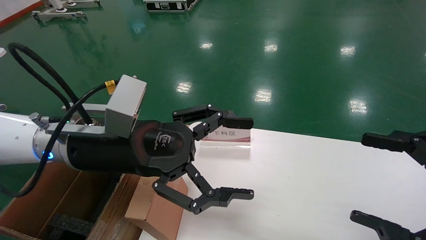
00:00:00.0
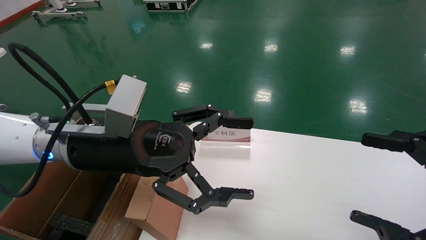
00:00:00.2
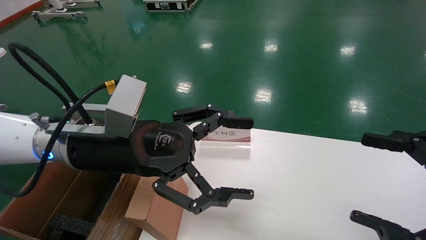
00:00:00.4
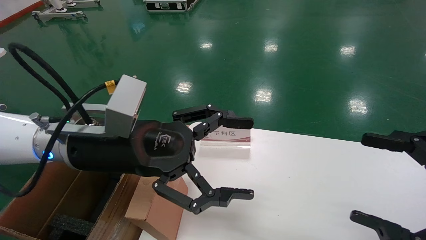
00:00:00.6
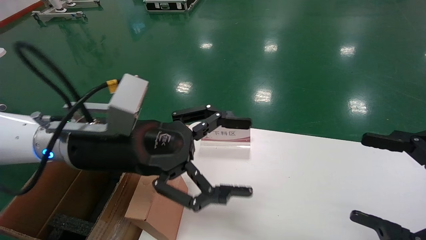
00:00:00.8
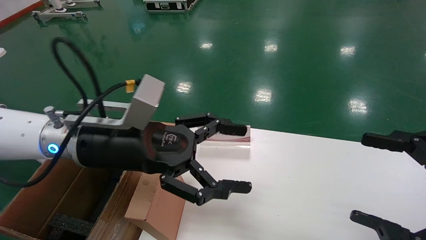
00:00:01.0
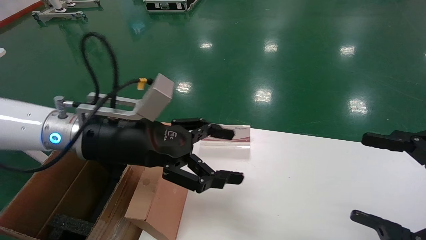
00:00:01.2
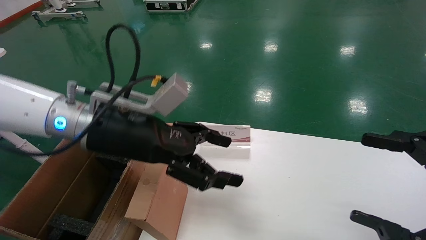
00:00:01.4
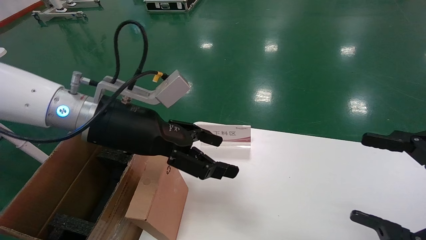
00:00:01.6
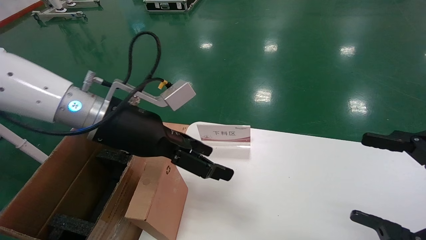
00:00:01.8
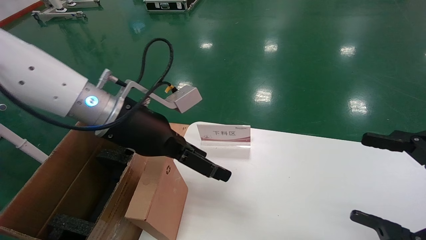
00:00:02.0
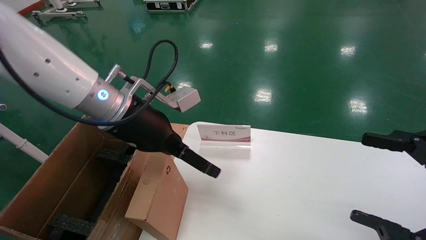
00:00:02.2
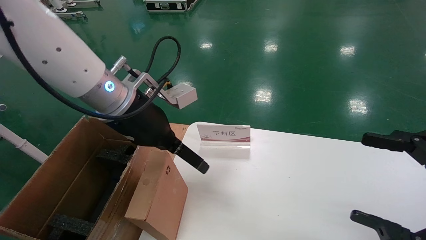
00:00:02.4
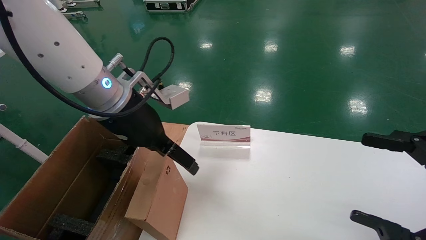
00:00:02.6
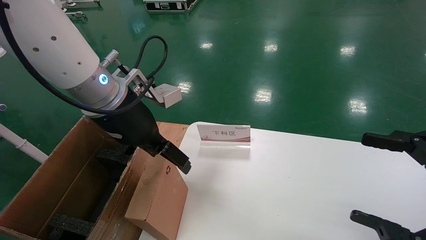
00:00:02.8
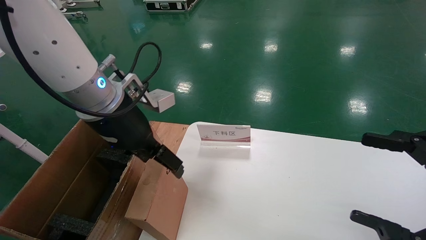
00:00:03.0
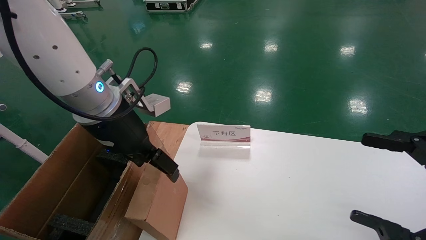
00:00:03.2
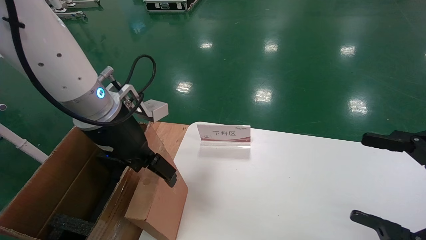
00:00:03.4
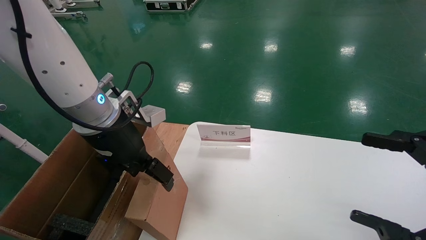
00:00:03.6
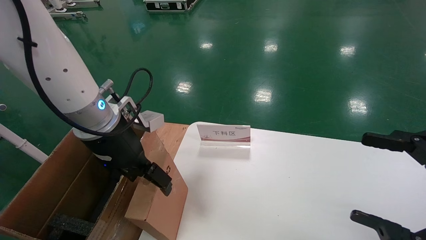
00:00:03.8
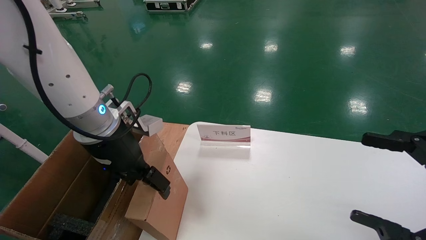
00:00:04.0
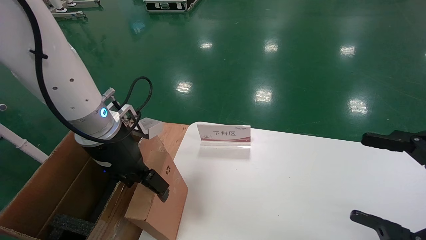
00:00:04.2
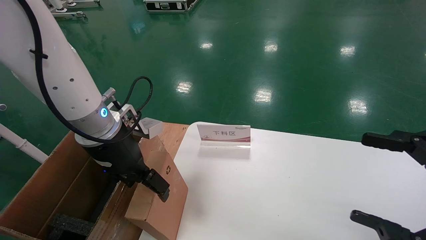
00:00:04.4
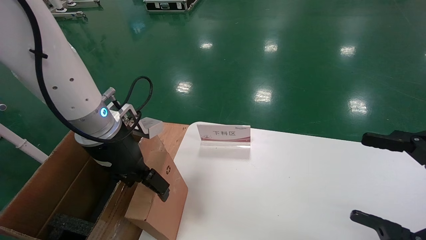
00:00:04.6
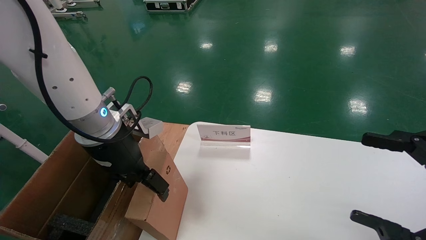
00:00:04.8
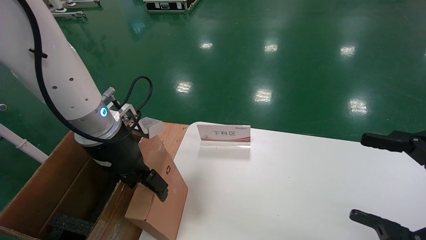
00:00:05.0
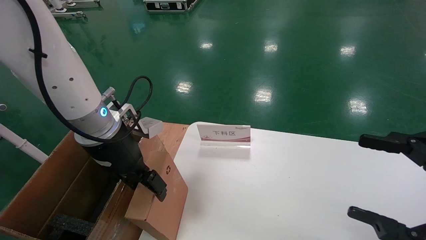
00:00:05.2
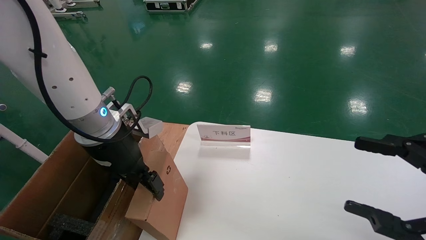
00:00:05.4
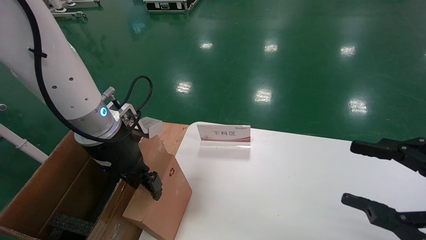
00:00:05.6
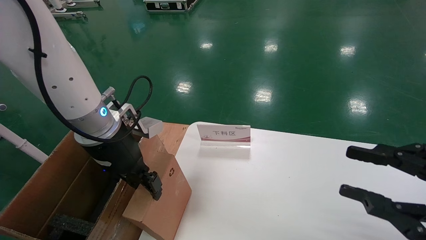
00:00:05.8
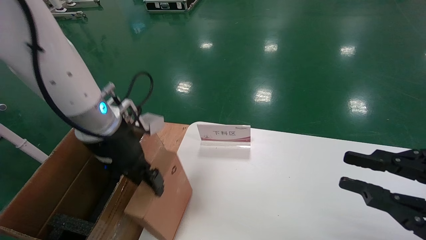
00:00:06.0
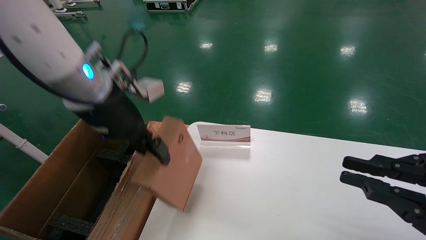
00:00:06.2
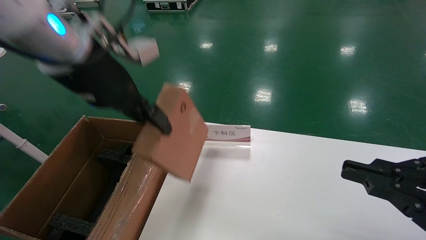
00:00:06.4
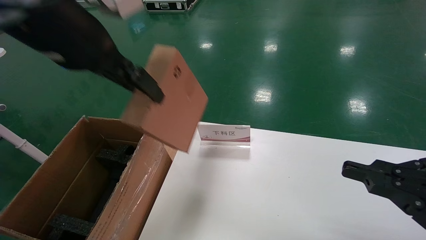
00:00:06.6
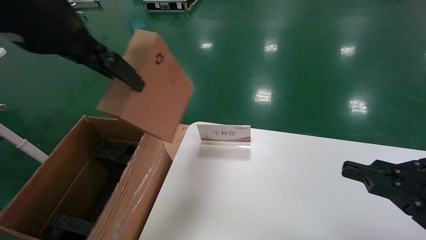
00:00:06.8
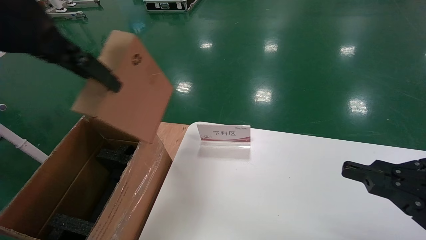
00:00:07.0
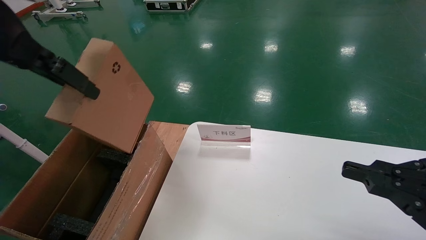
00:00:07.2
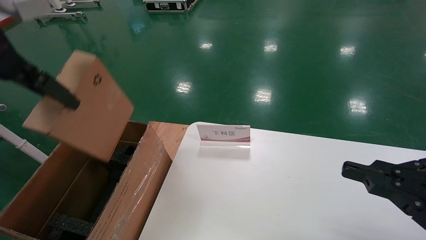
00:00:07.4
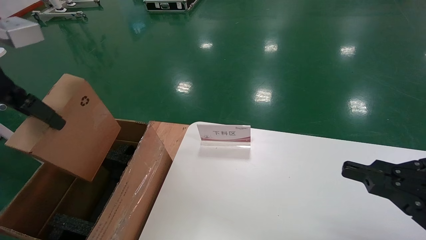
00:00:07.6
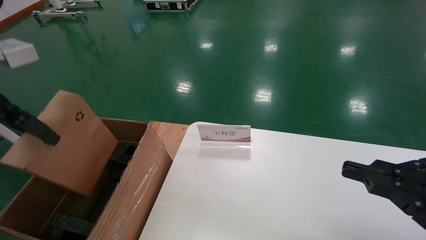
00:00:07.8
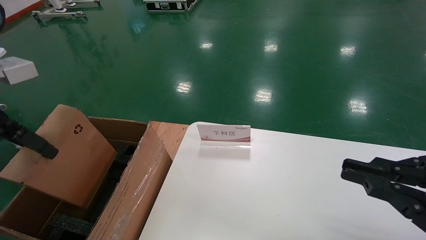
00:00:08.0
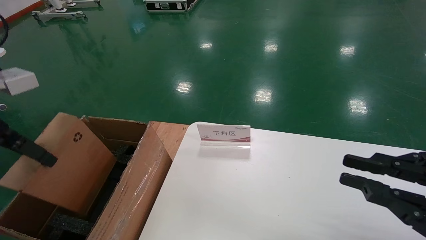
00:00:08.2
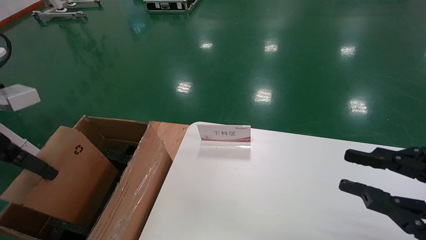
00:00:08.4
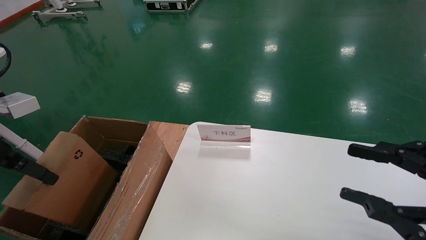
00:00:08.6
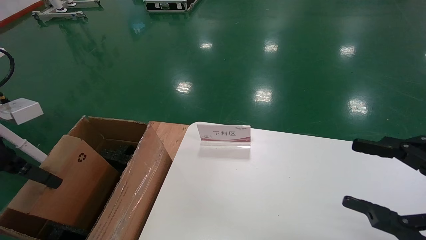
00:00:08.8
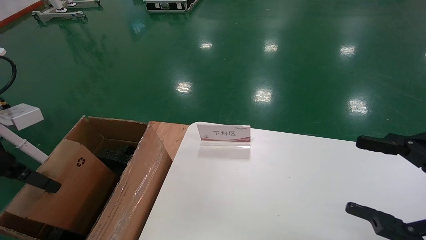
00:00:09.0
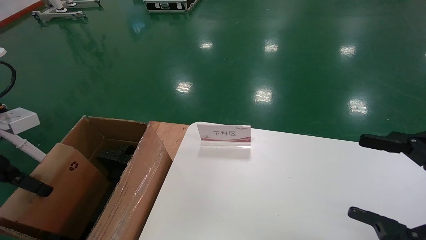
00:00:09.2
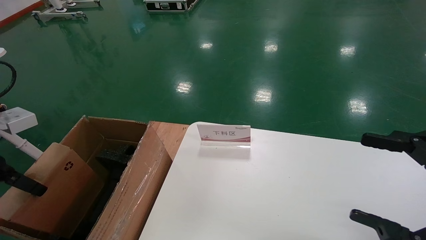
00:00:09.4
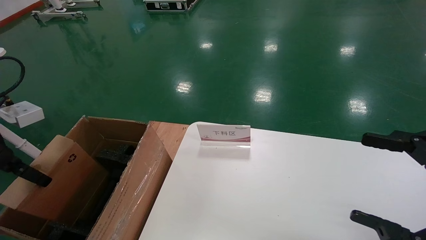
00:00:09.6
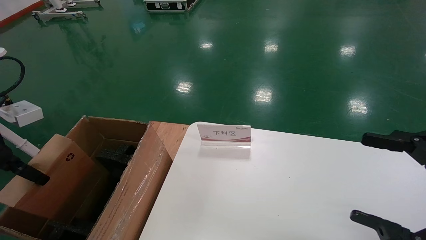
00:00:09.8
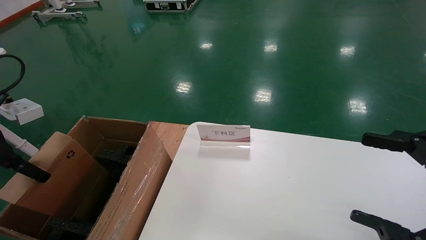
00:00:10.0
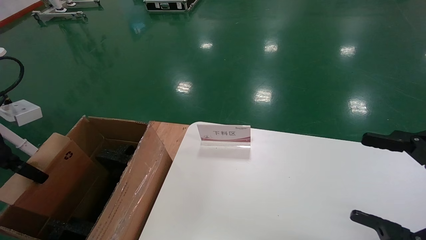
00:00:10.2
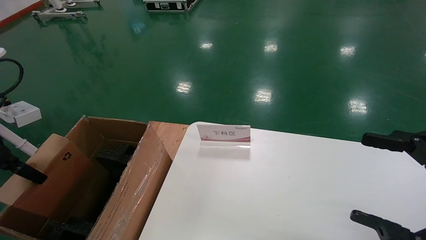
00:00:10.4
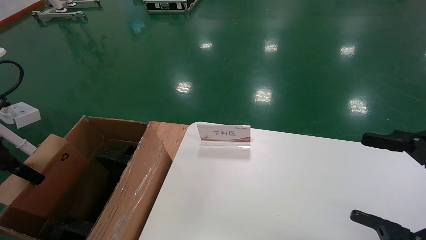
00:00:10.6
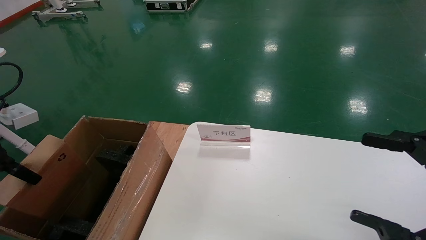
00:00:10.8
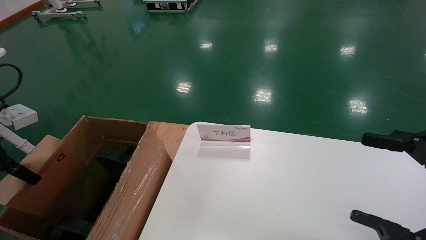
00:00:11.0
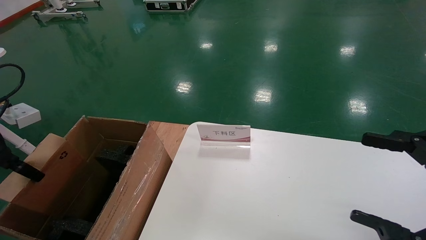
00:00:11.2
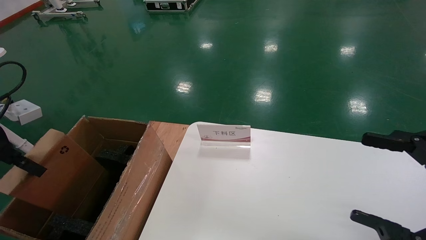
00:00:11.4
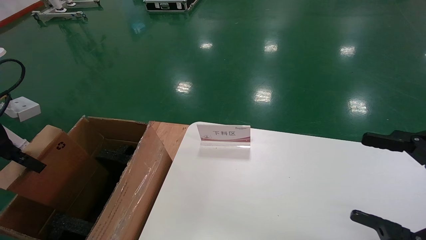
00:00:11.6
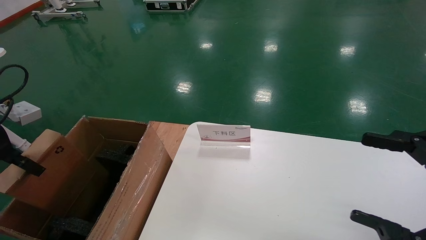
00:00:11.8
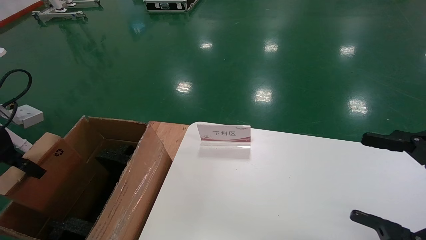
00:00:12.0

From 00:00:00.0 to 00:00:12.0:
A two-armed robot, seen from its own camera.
Task of the whole recording: pick up the small cardboard box and load it into the large cardboard box.
Step, from 00:00:01.0 to 00:00:06.2: Pick up the mouse and power cord box.
From 00:00:03.0 to 00:00:04.4: The left gripper moves some 5 cm.
From 00:00:04.4 to 00:00:06.0: The right gripper closes its fingers. The left gripper closes its fingers.
From 00:00:06.0 to 00:00:07.6: The left gripper travels upward, to the left and backward by some 20 cm.
From 00:00:07.6 to 00:00:09.0: The right gripper opens. Meanwhile the left gripper travels downward and to the left by some 15 cm.
From 00:00:09.0 to 00:00:10.4: There are only small adjustments of the grippers.
From 00:00:10.4 to 00:00:12.0: The left gripper moves some 5 cm.

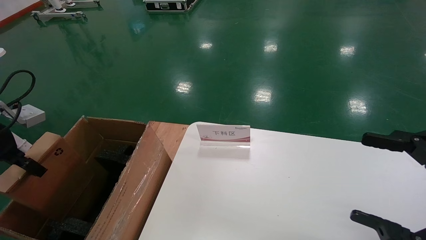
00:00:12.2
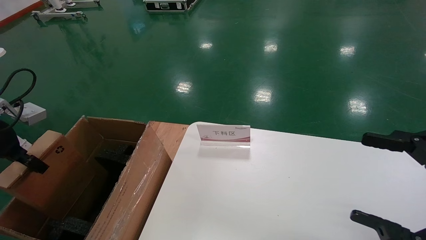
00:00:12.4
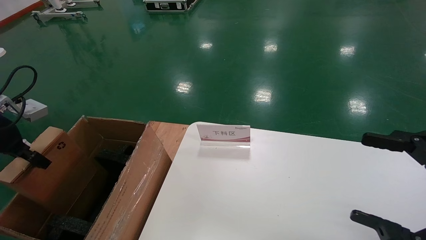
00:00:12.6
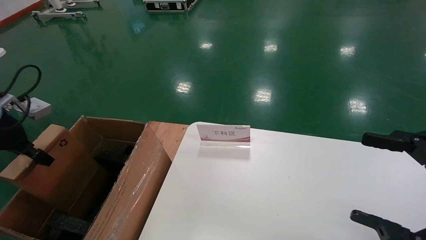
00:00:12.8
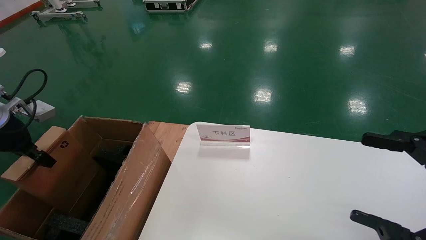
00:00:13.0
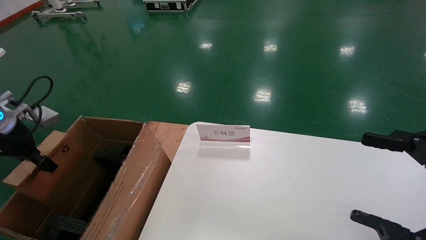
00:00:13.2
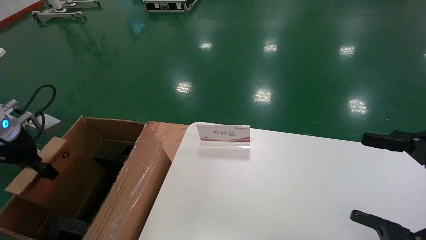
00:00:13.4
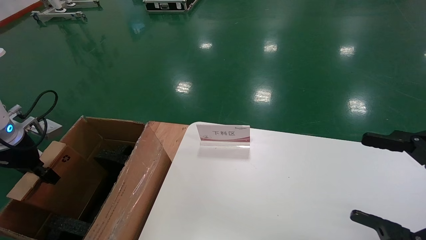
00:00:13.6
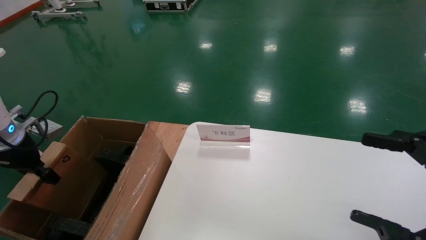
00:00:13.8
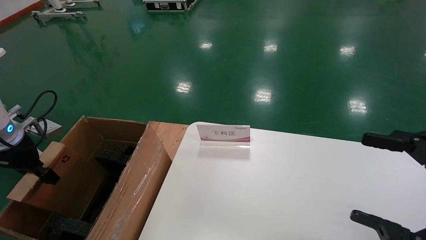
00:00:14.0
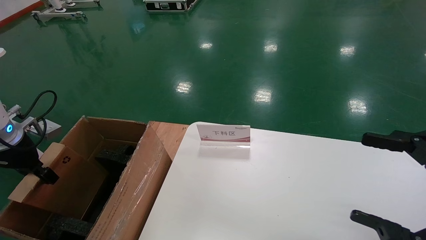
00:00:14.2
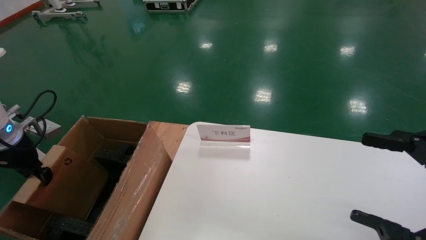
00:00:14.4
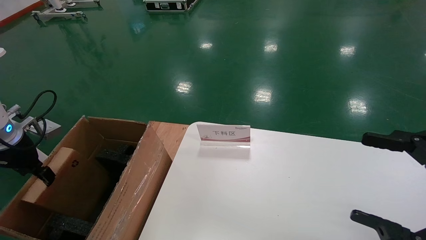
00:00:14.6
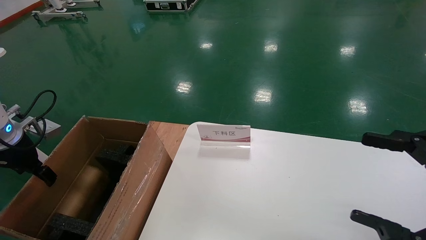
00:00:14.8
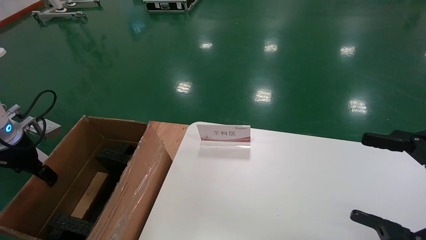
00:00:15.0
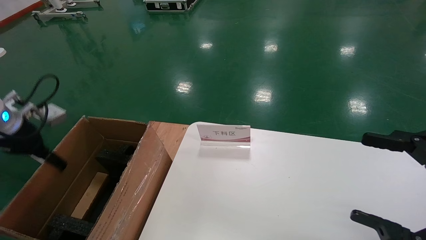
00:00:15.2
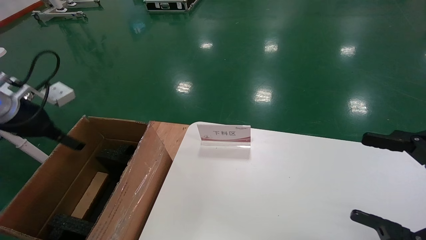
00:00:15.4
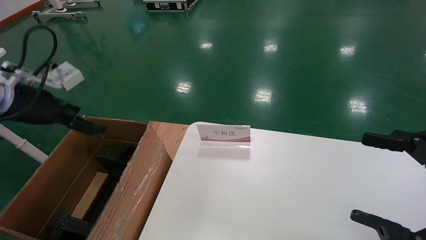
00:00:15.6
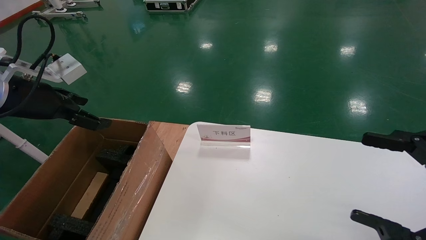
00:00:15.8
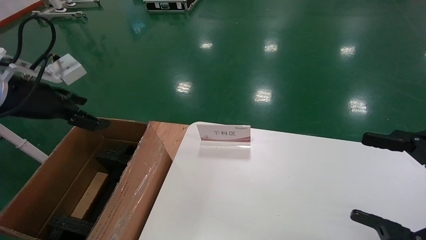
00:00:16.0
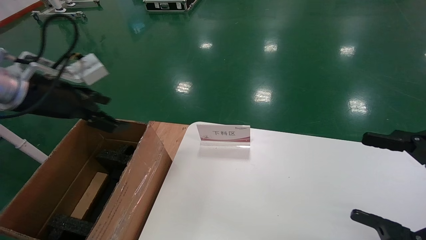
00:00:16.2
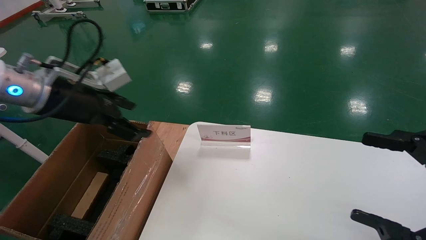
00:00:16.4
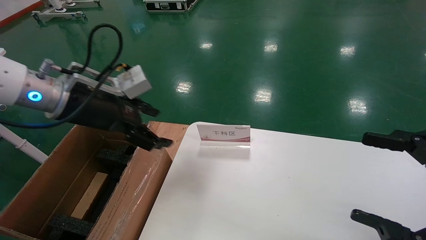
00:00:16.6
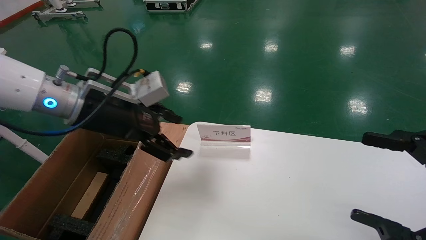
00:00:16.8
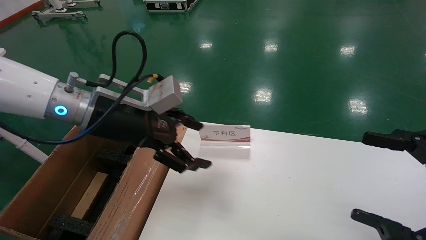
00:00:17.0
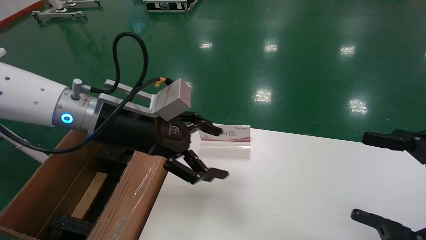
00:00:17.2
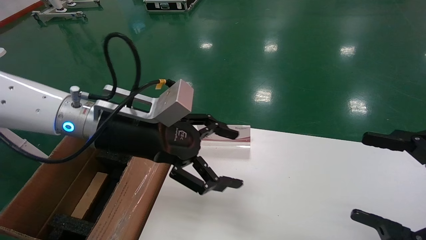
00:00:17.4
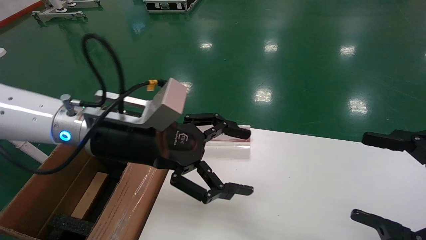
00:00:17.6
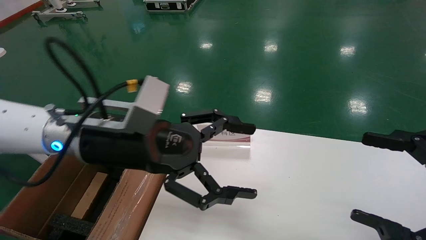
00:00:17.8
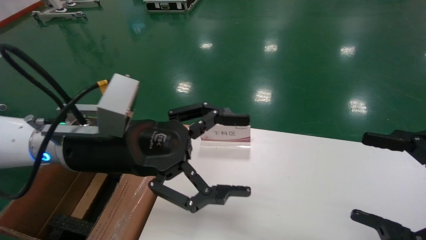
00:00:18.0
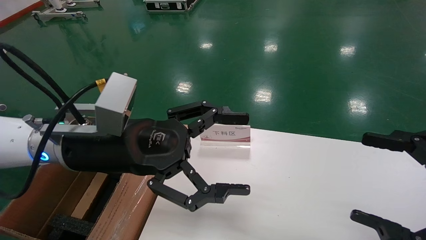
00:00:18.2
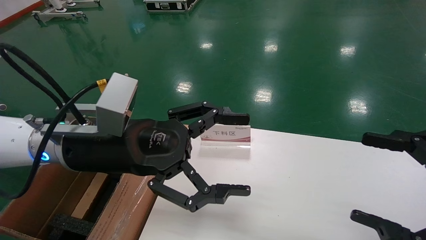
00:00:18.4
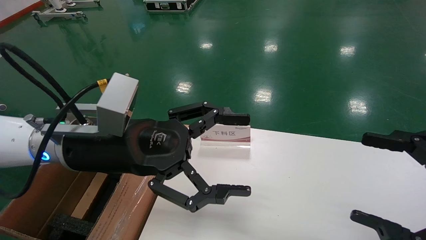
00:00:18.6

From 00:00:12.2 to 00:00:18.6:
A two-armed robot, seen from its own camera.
Task of the whole recording: pick up the small cardboard box and load it into the large cardboard box.
Step, from 00:00:12.2 to 00:00:15.2: Place the mouse and power cord box into the case.
From 00:00:12.2 to 00:00:13.8: The left gripper goes some 5 cm downward.
From 00:00:13.8 to 00:00:15.4: The left gripper heads upward, covering approximately 5 cm, and opens.
From 00:00:15.4 to 00:00:17.0: The left gripper shifts about 20 cm to the right.
From 00:00:17.0 to 00:00:18.6: The left gripper shifts roughly 5 cm backward.
